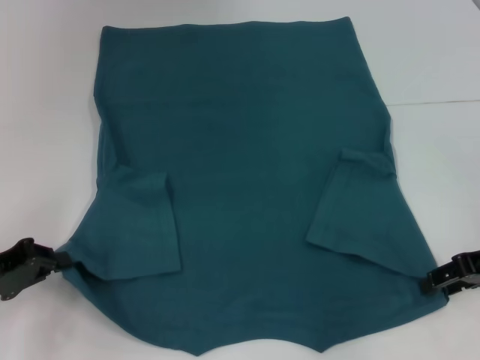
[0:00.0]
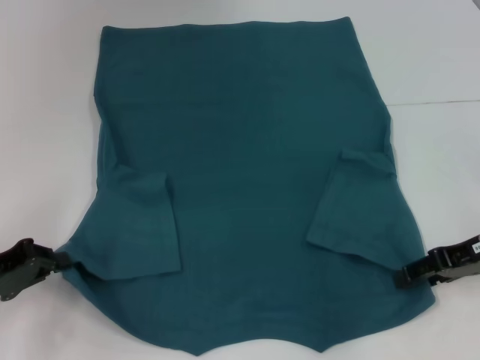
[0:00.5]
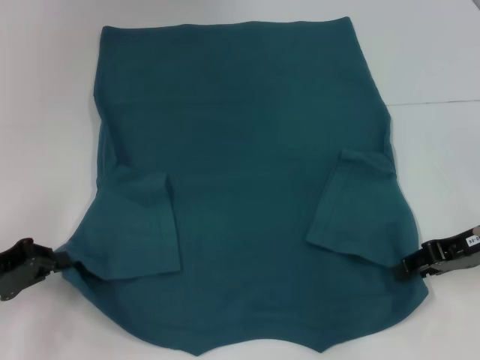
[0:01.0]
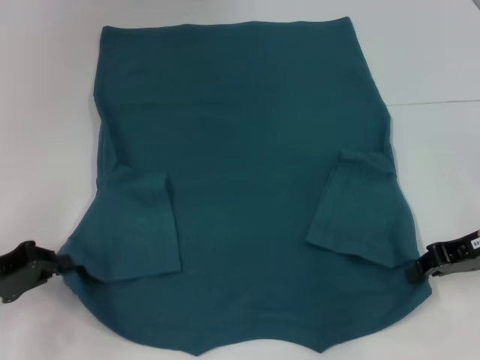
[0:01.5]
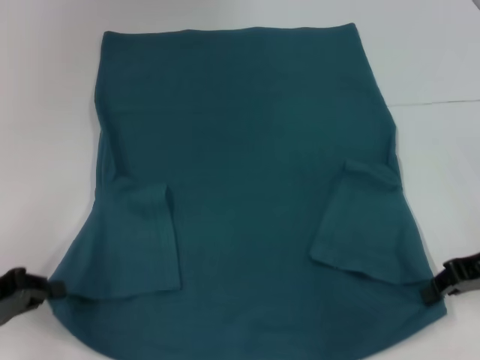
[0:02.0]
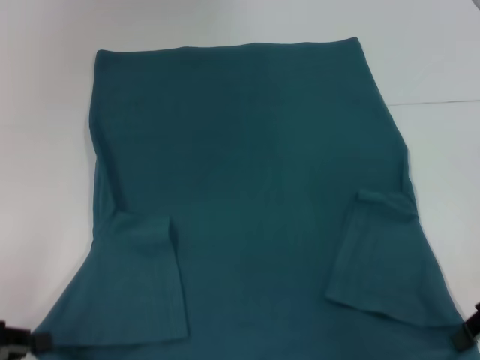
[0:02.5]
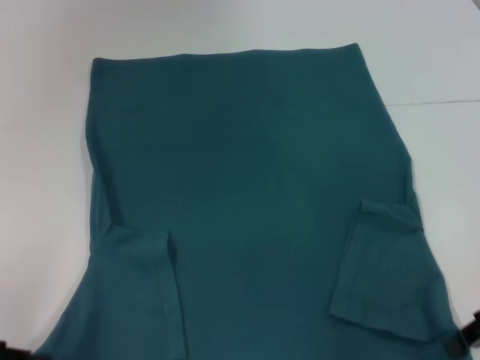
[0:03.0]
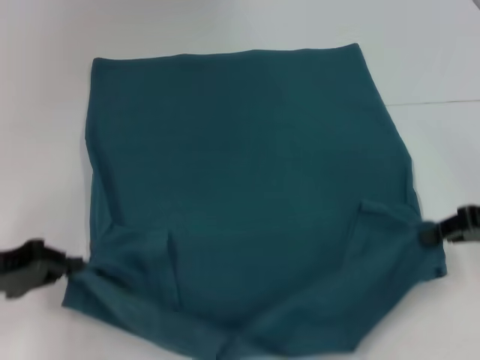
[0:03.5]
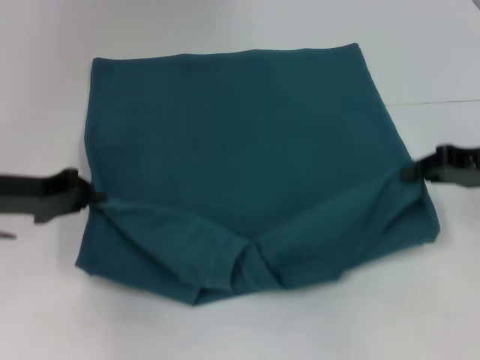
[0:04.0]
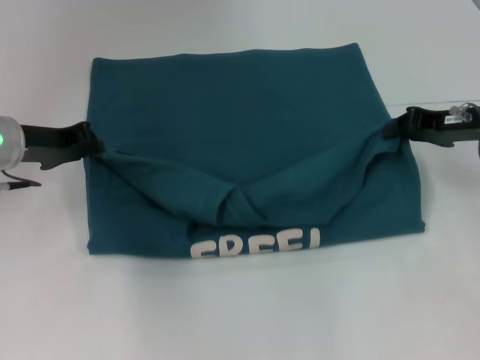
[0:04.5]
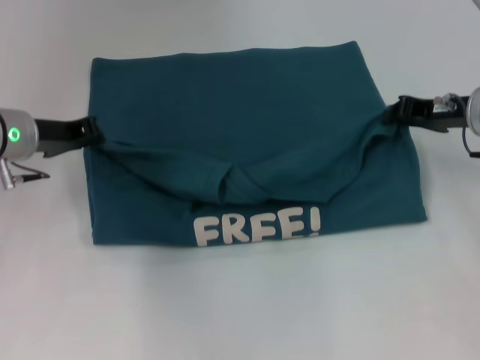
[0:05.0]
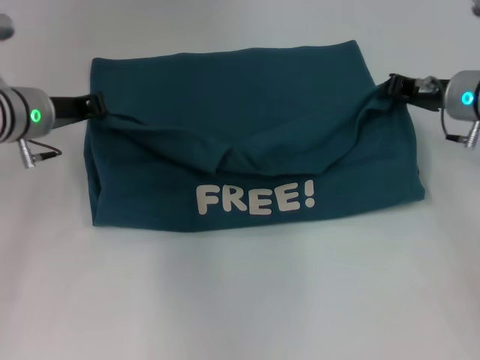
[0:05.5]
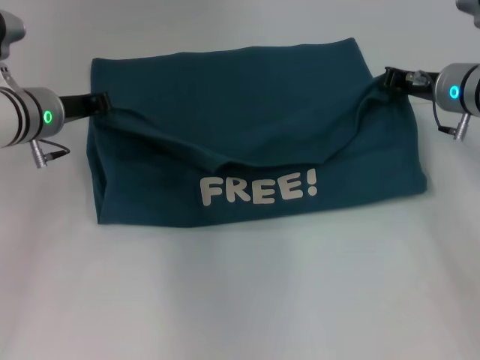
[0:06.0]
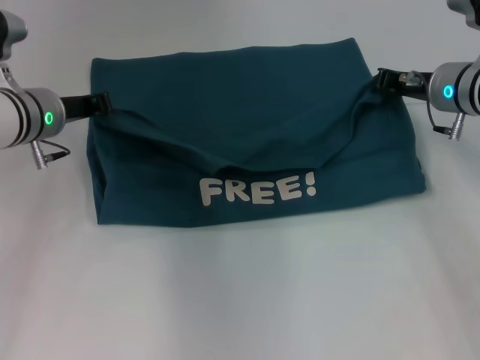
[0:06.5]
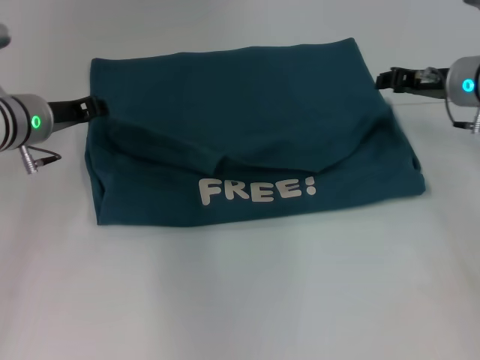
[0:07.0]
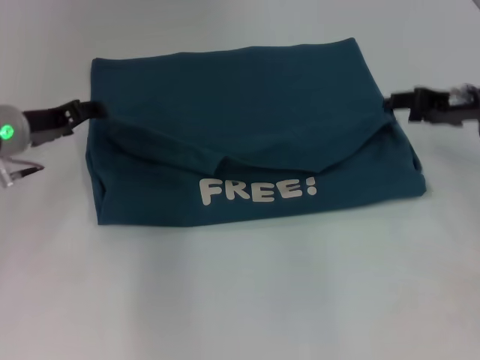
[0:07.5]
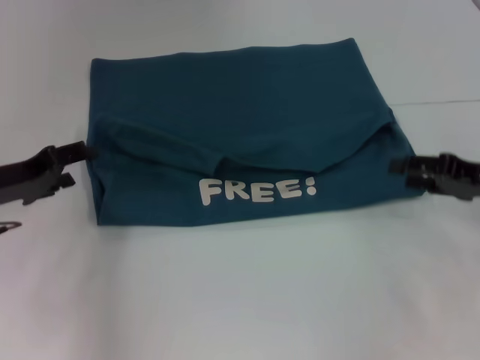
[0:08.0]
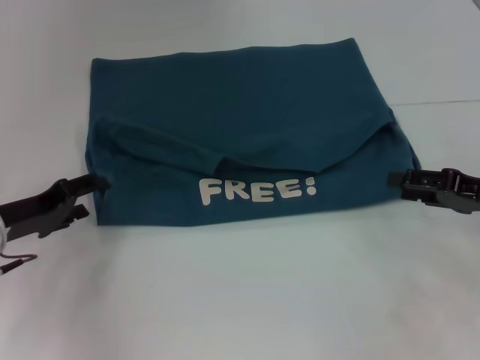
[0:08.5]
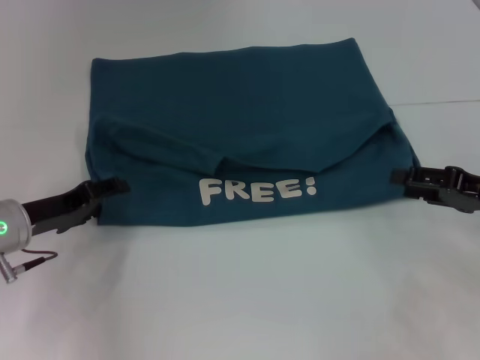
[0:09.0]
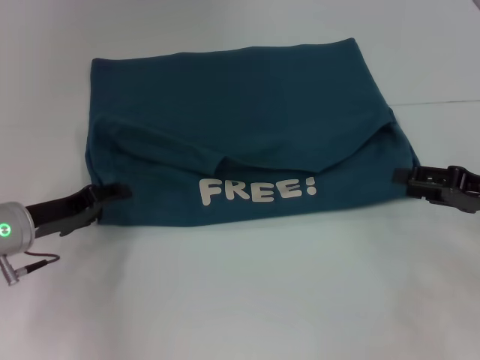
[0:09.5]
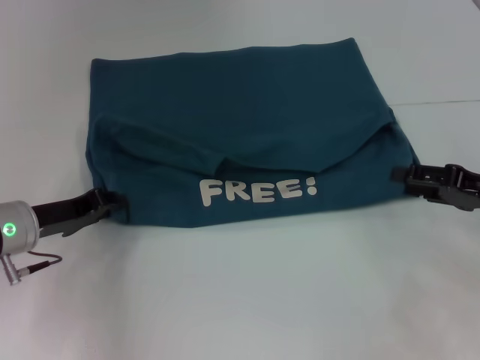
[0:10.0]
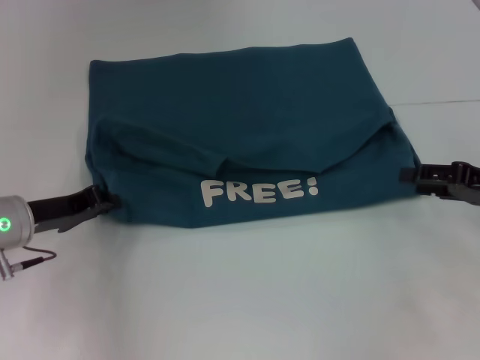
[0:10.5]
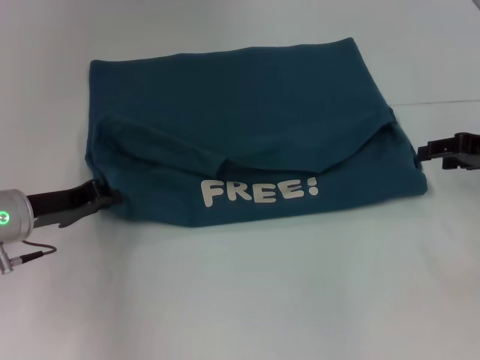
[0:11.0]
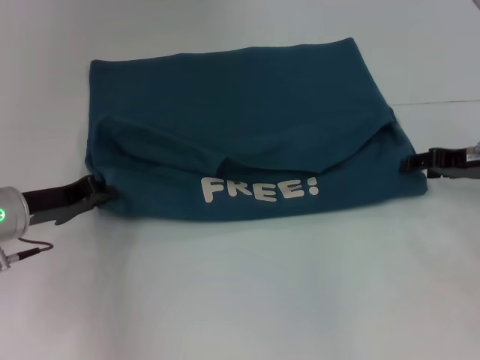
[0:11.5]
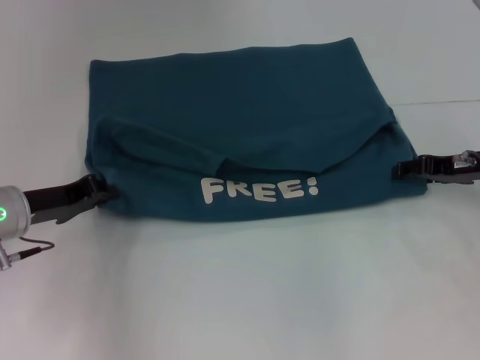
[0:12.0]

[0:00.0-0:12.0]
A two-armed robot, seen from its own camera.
Step, 0:01.5 to 0:07.0: Fold the clothes to the left.
Step, 0:01.5 to 0:07.0: Fold the clothes to the right.
0:00.0 to 0:02.0: The right gripper closes its fingers.
0:02.0 to 0:04.0: The right gripper shifts by some 5 cm. Meanwhile the left gripper moves forward, upward and to the right, about 15 cm.
0:04.0 to 0:06.0: The left gripper is displaced forward and to the right by approximately 10 cm, while the right gripper is displaced forward and to the left by about 10 cm.
0:06.0 to 0:08.0: The right gripper travels backward and to the right by about 15 cm, and opens up. The left gripper travels backward and to the left by approximately 10 cm, and opens.
0:08.0 to 0:10.0: The left gripper moves about 5 cm, and closes its fingers.
0:10.0 to 0:12.0: The right gripper heads forward, covering approximately 10 cm. The left gripper closes.

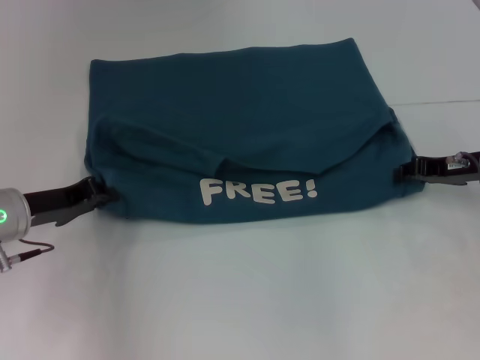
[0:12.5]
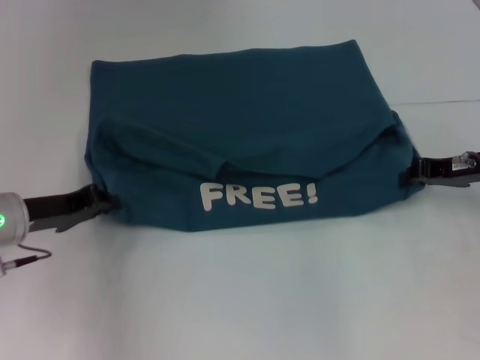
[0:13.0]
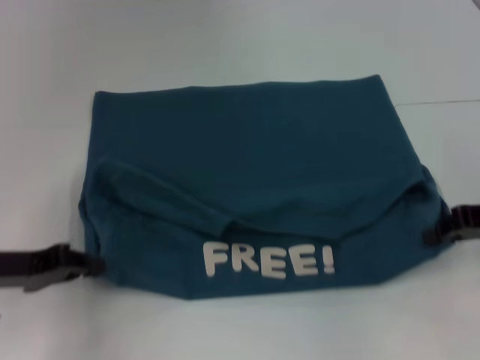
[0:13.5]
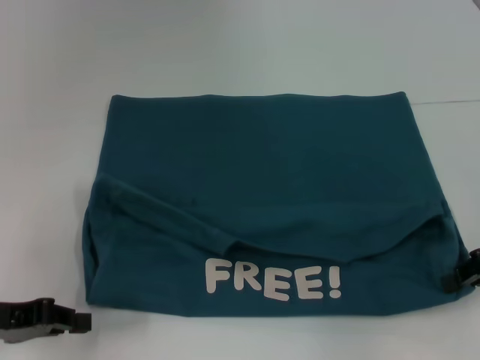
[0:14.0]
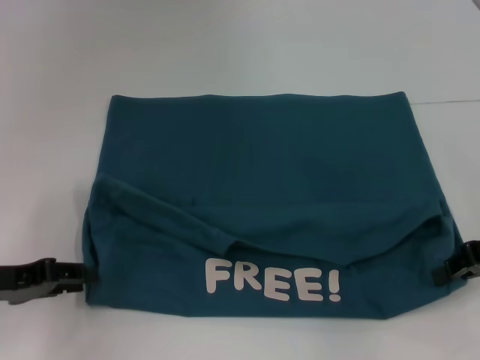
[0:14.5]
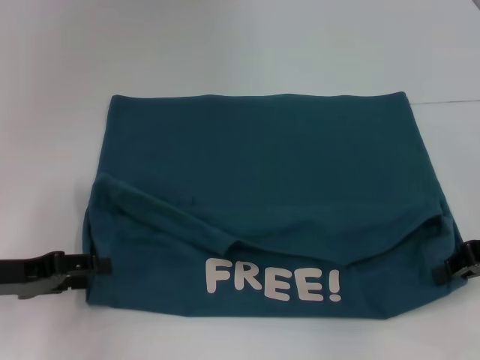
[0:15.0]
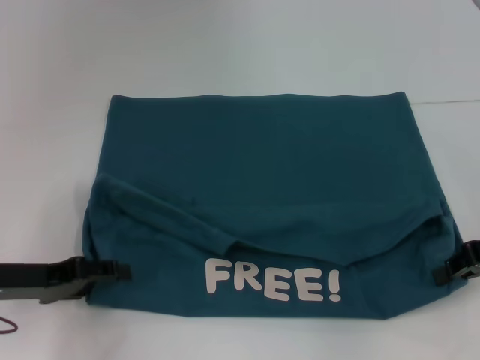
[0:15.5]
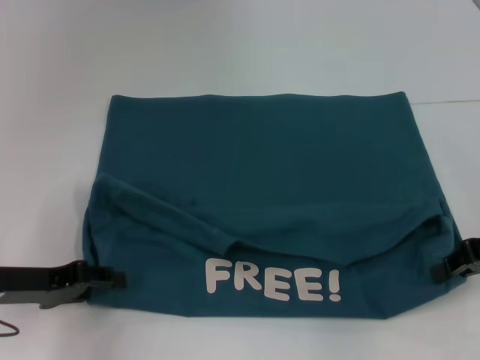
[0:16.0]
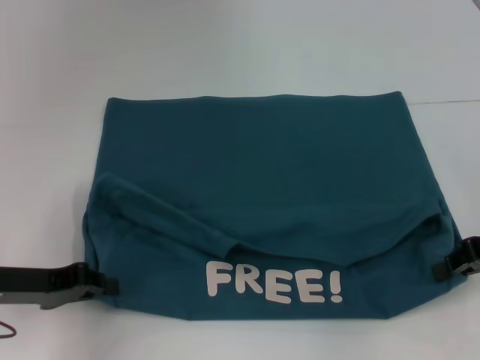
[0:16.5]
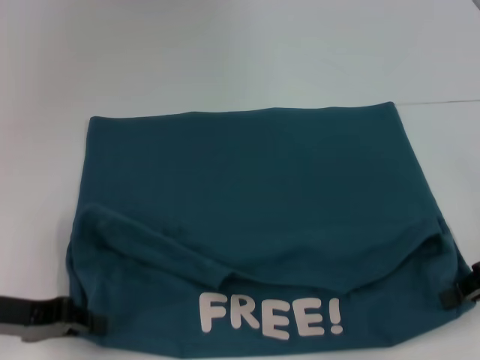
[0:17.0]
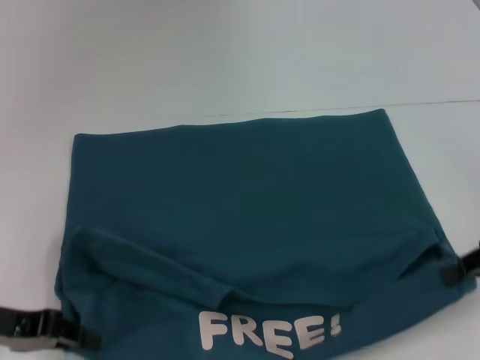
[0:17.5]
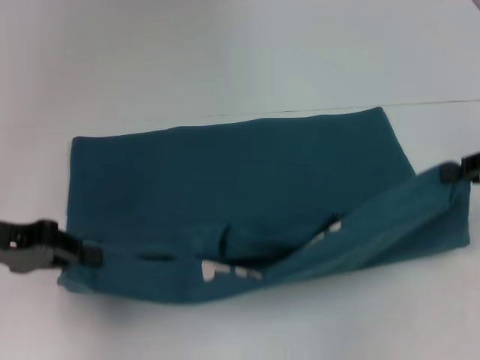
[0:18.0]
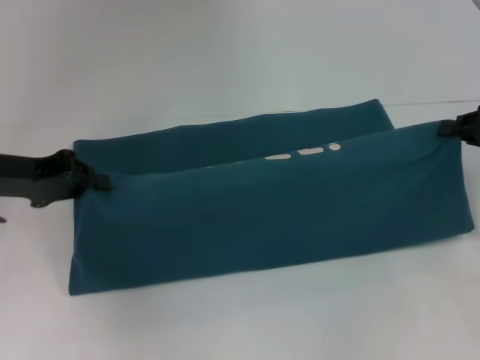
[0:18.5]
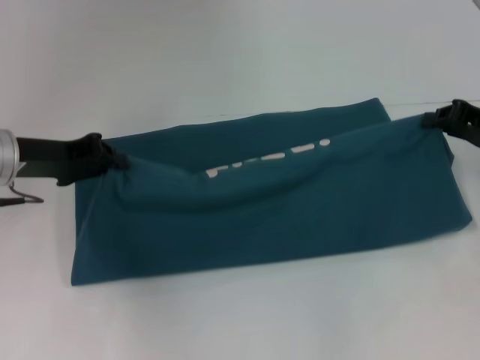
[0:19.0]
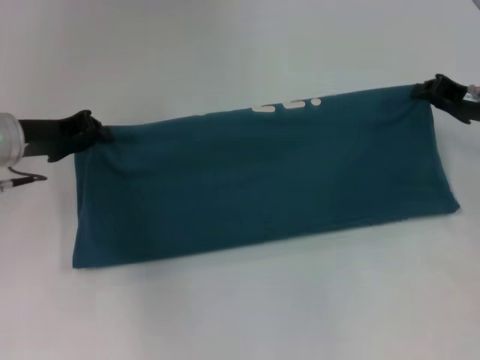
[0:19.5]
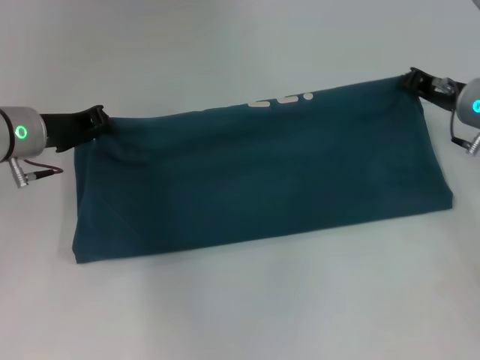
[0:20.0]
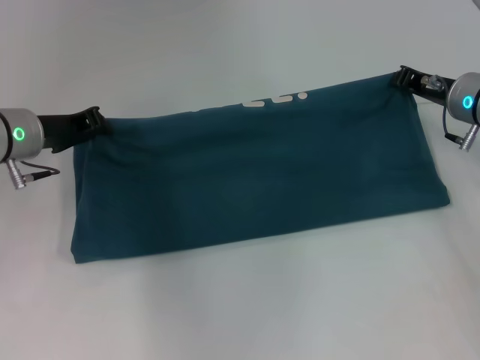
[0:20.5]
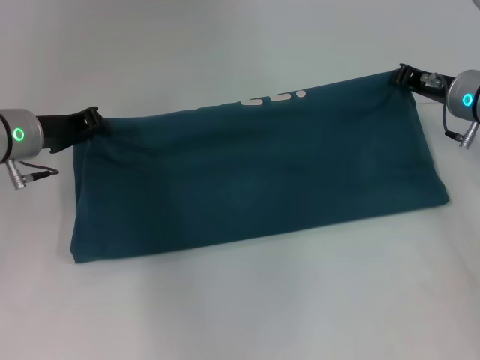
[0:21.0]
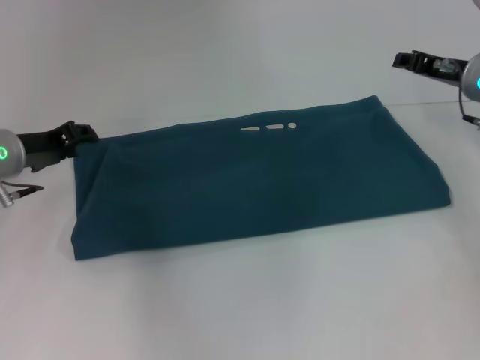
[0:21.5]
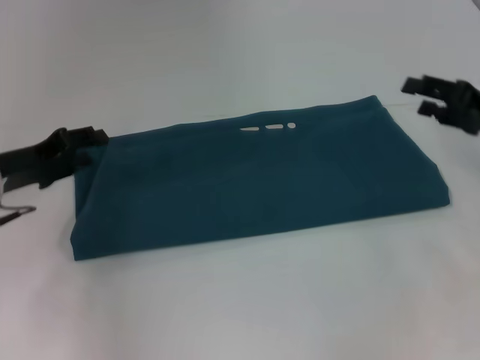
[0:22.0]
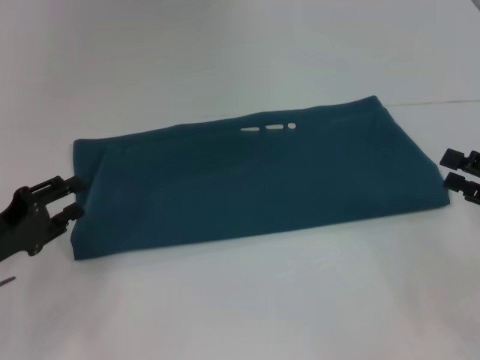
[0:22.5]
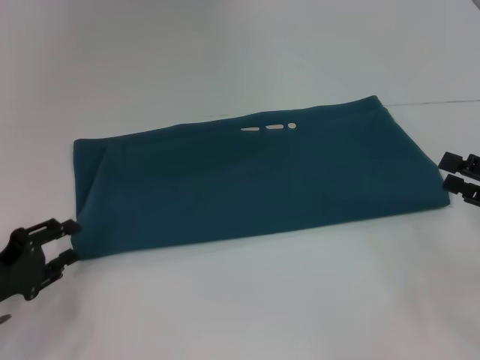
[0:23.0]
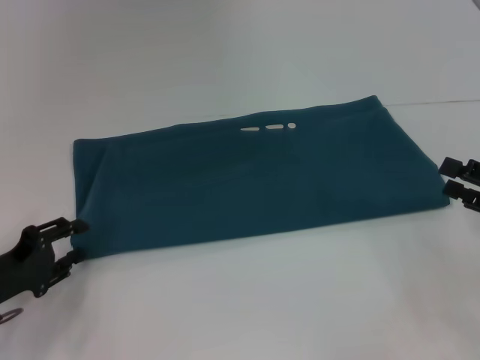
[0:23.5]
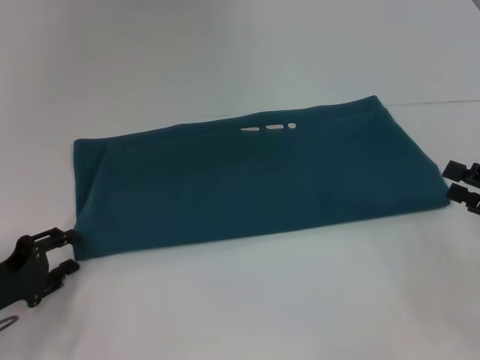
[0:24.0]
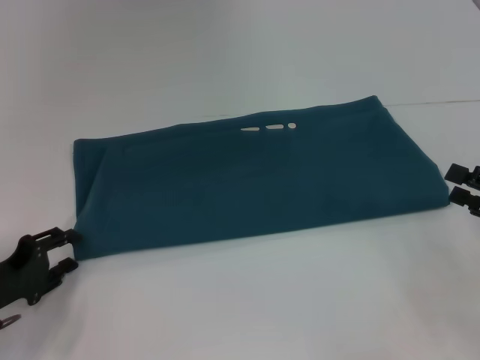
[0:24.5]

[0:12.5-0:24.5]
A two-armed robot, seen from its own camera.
Step, 0:12.5 to 0:17.0: Pull the clothes with your left hand.
Step, 0:12.5 to 0:17.0: Pull the clothes with your right hand.
Step, 0:17.5 to 0:21.0: Fold the clothes to the right.
0:12.5 to 0:14.5: Both grippers travel together backward, some 5 cm. The right gripper closes.
0:14.5 to 0:16.5: The left gripper opens, then closes again.
0:16.5 to 0:18.5: The right gripper moves some 5 cm. The left gripper is displaced upward and forward by roughly 10 cm.
0:18.5 to 0:20.5: The left gripper goes approximately 5 cm forward, while the right gripper is displaced to the left and forward by approximately 15 cm.
0:20.5 to 0:22.5: The left gripper goes roughly 15 cm backward, downward and to the left, and opens; the right gripper moves backward and to the right, roughly 20 cm, and opens its fingers.
0:22.5 to 0:24.5: There are only small adjustments of the grippers.

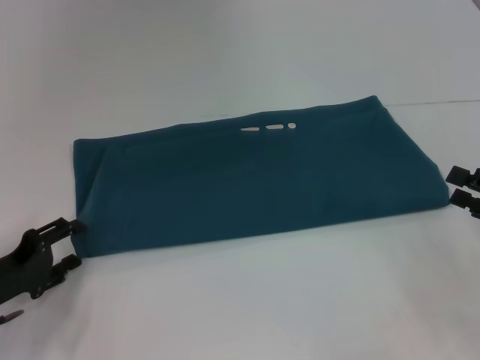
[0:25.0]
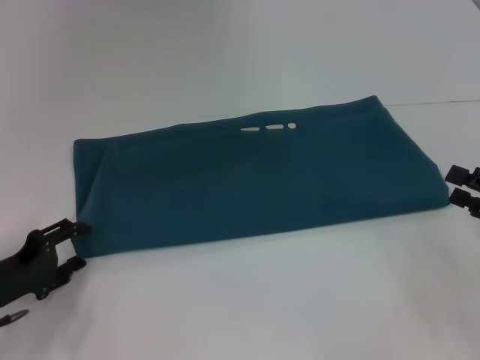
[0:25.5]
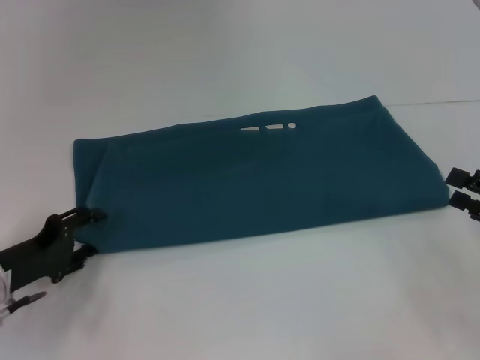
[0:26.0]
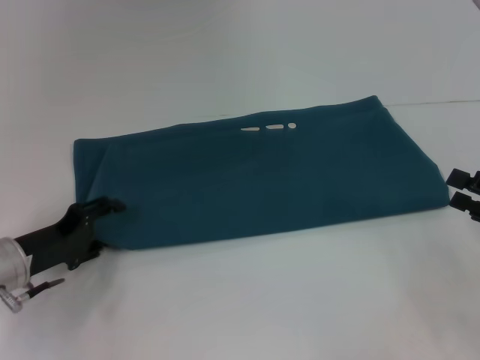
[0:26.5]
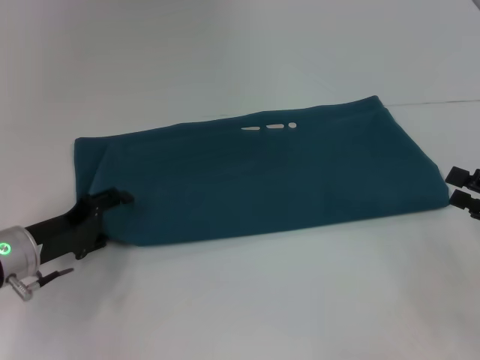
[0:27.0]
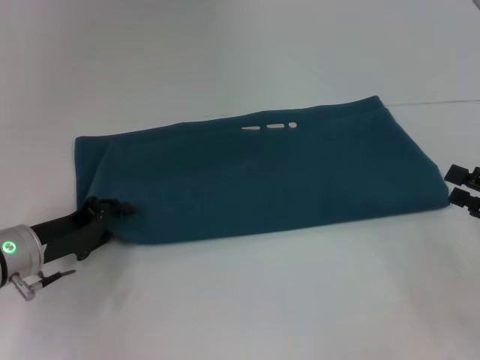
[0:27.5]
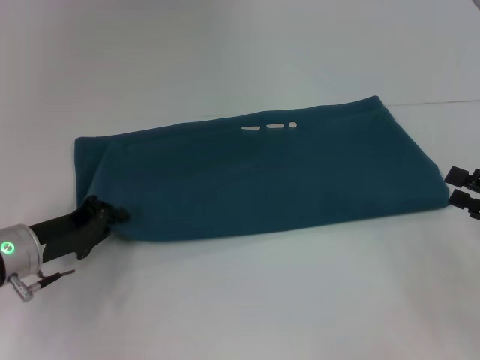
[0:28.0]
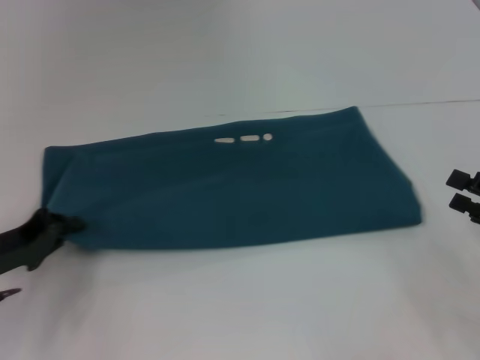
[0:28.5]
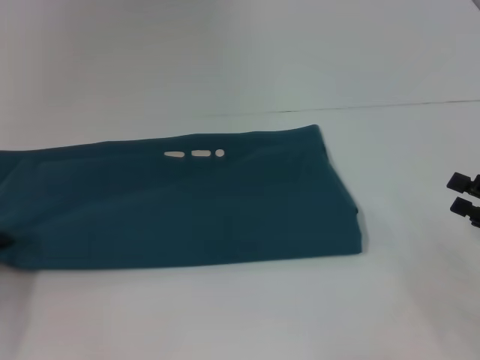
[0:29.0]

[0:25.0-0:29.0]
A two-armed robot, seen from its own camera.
0:25.0 to 0:27.0: The left gripper goes approximately 5 cm forward.
0:27.0 to 0:29.0: The left gripper goes about 10 cm to the left, and closes.
